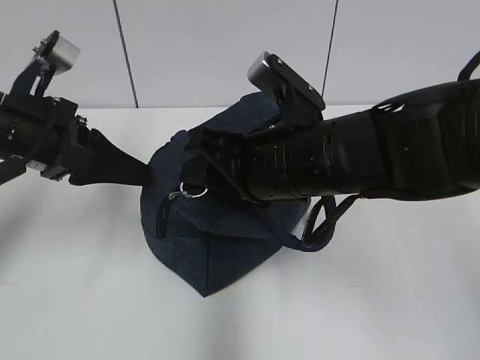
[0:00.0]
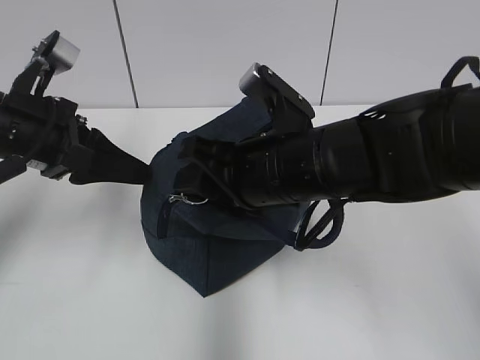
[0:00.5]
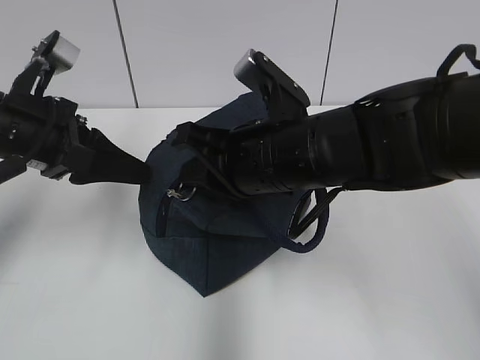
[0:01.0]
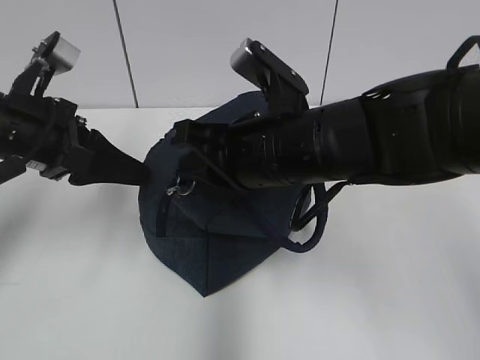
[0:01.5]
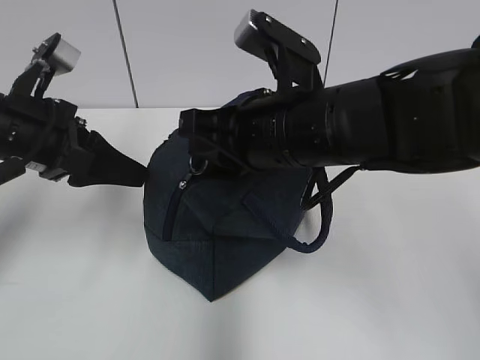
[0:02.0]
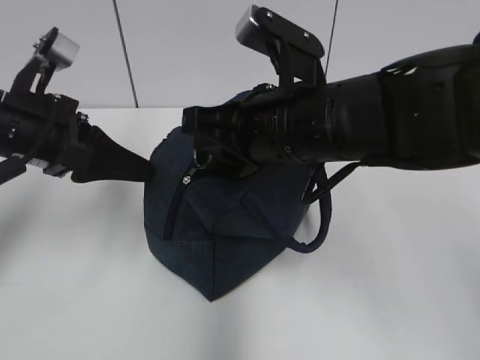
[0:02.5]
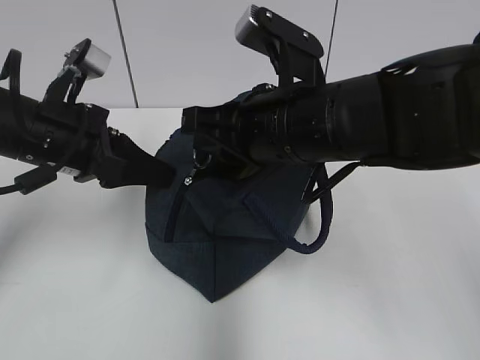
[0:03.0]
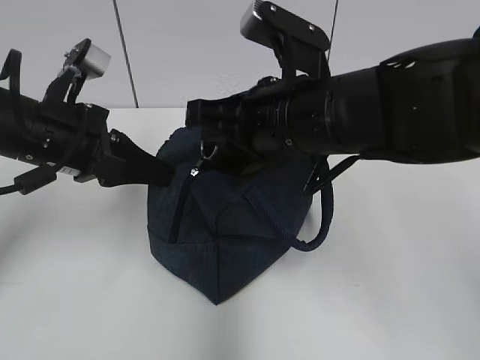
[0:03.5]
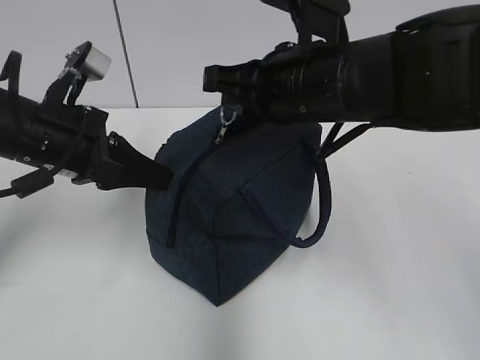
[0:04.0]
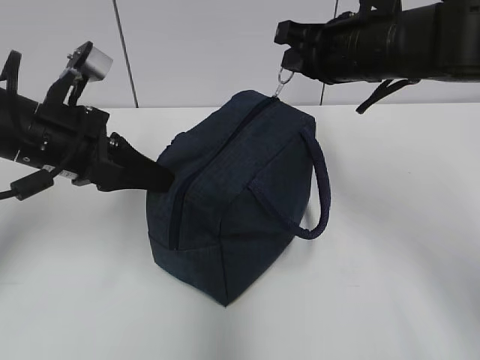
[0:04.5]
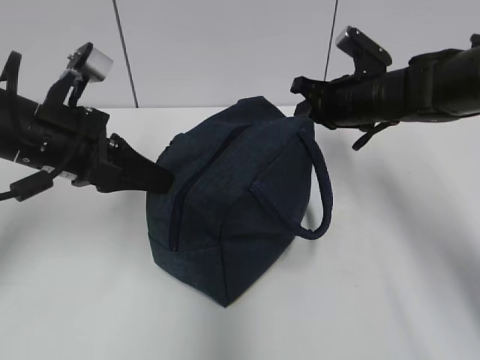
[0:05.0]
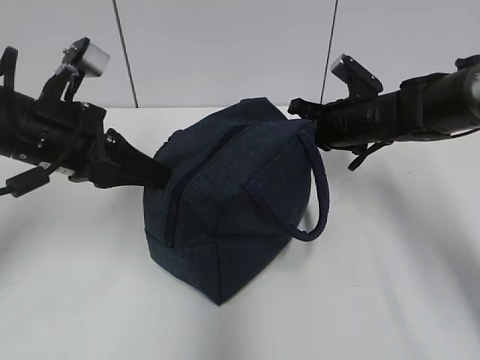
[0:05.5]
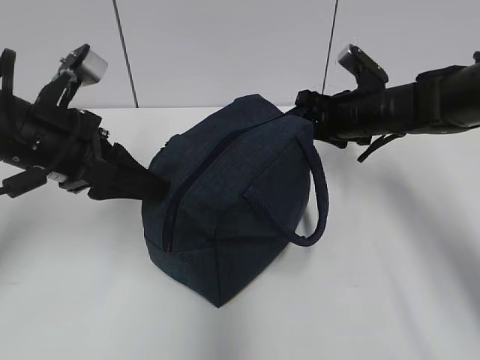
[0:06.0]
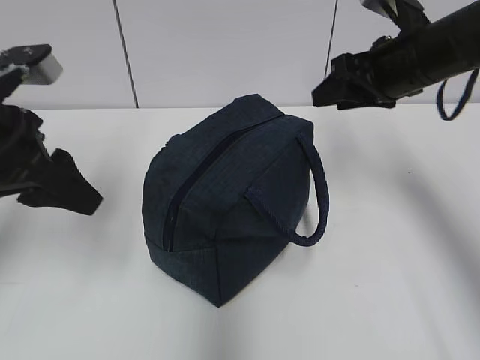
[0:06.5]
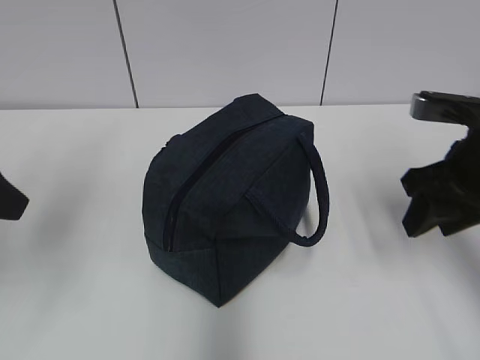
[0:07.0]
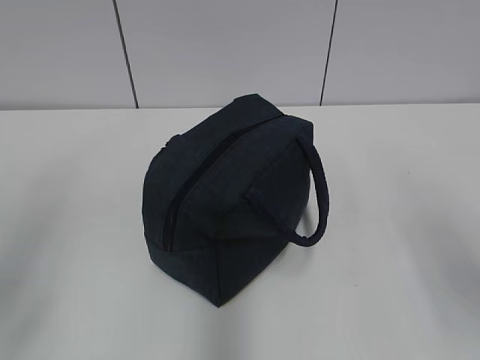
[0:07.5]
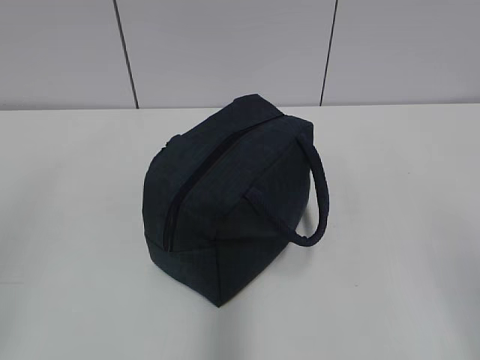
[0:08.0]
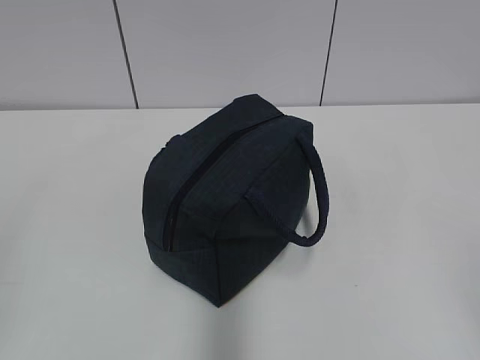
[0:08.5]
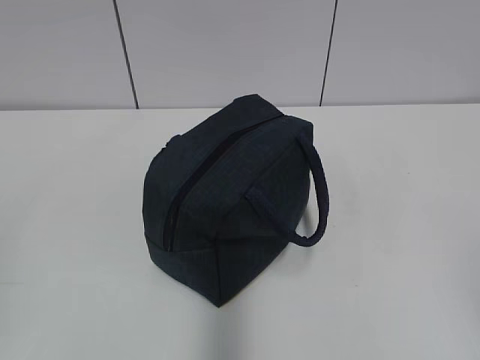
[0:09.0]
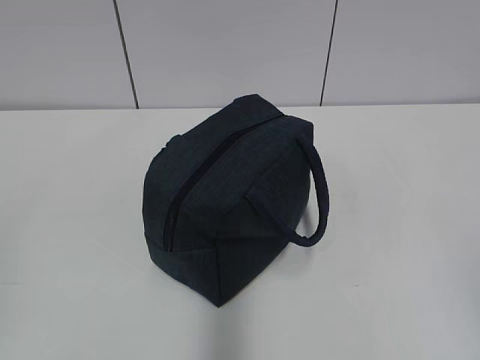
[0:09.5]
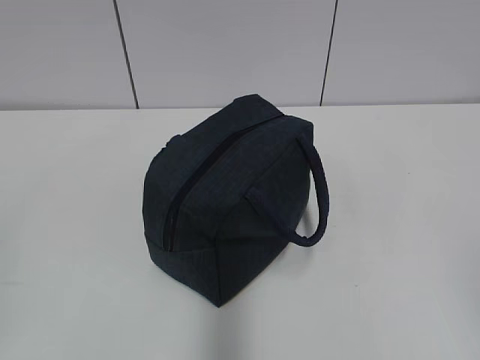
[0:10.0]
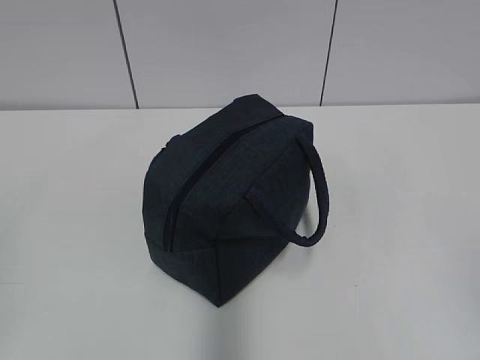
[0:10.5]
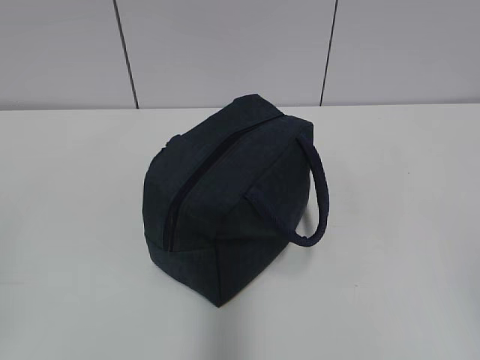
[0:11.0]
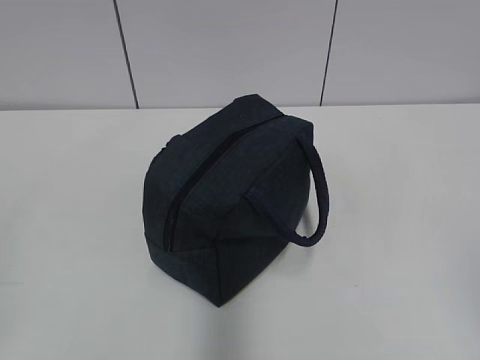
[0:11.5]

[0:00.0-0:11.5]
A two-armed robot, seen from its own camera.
Step, 0:00.0 to 0:03.0: Grab the lunch bag with your left hand.
Step, 0:03.5 to 0:05.5: Pull the zipper with your right hand.
0:00.0 to 0:02.0: The right gripper closes up.
0:02.0 to 0:04.0: The left gripper closes.
0:04.0 to 0:06.0: The left gripper opens. Meanwhile the right gripper travels forward, to the right and downward by roughly 20 cm, and opens up.
0:06.0 to 0:07.5: The right gripper is displaced backward by about 30 cm; the left gripper is displaced backward, to the left and upward by some 20 cm.
0:07.5 to 0:09.5: Both grippers travel together backward, about 15 cm.
